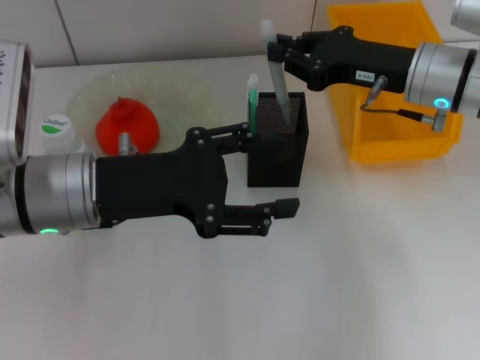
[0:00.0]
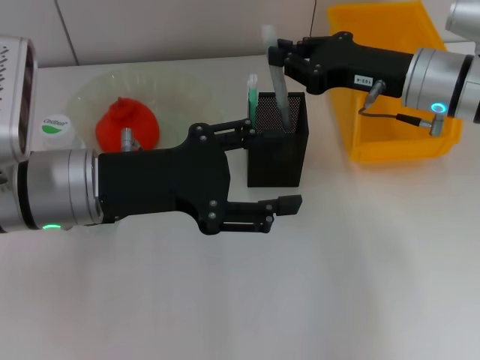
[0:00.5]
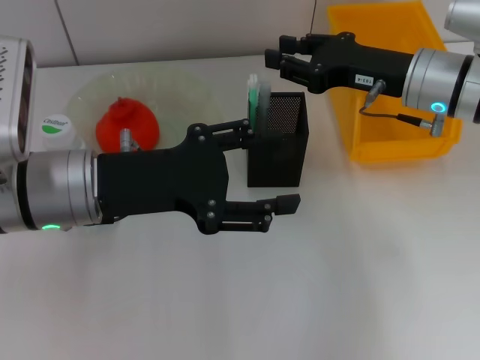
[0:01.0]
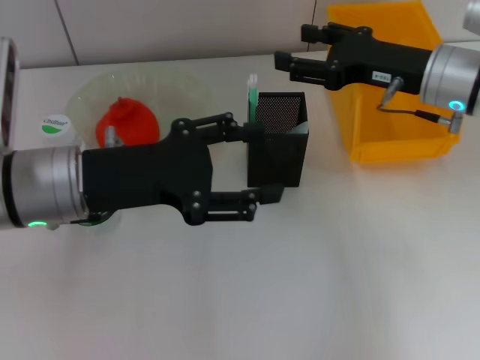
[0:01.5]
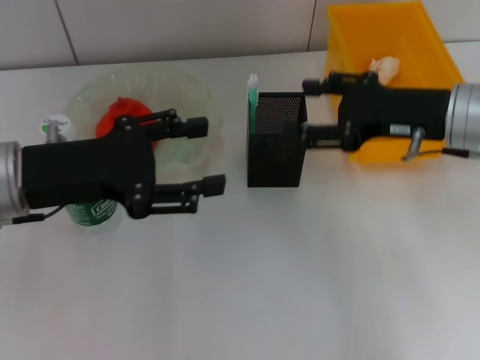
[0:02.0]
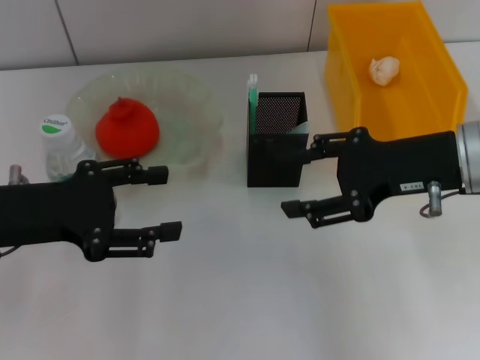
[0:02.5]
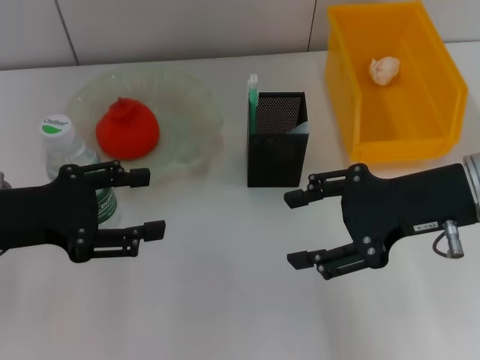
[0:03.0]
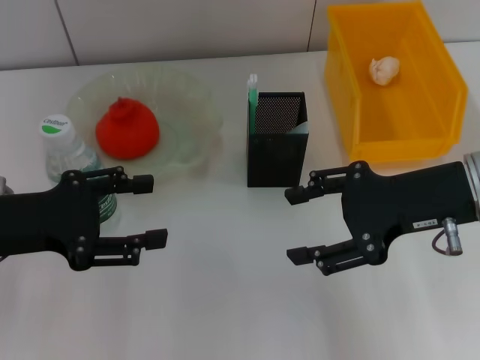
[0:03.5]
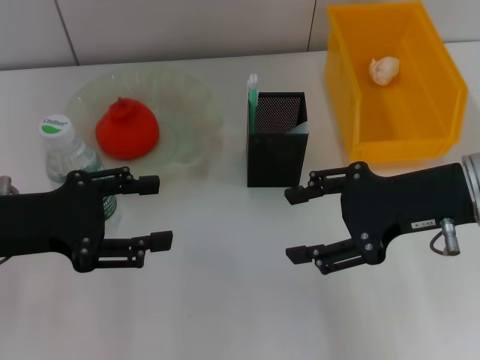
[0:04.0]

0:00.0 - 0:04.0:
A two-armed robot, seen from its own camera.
0:00.0 - 0:02.0: The right gripper opens.
0:02.0 - 0:04.0: The right gripper goes some 5 cm backward, while the left gripper travels to the left by roughly 5 cm.
